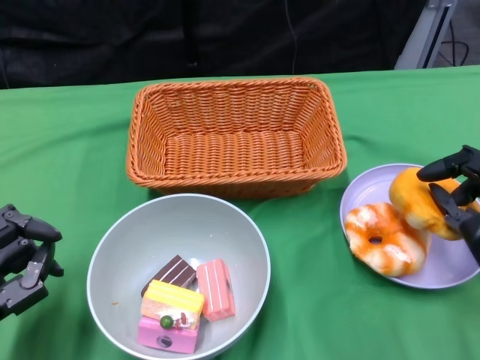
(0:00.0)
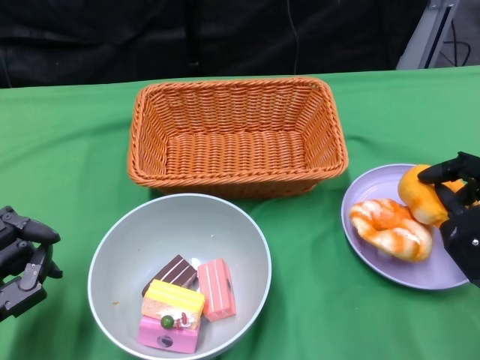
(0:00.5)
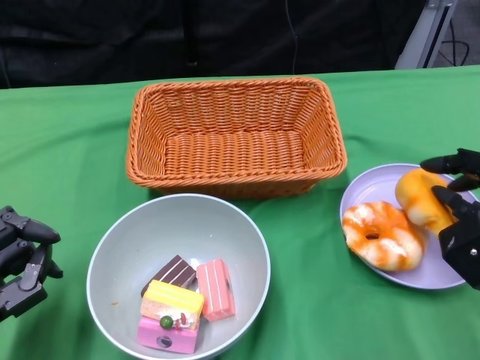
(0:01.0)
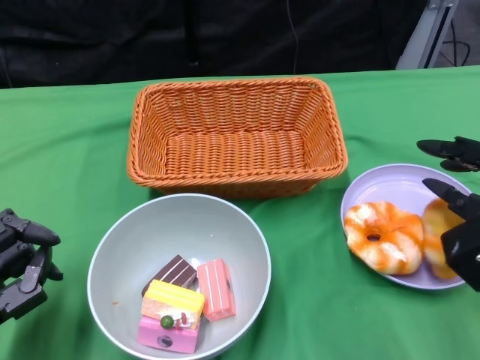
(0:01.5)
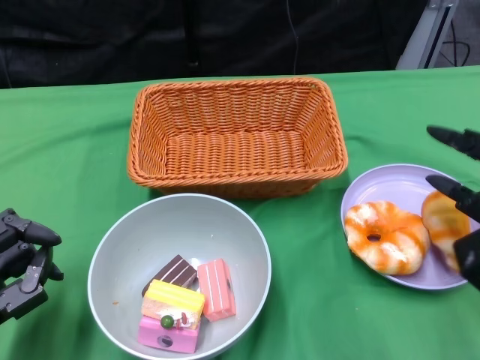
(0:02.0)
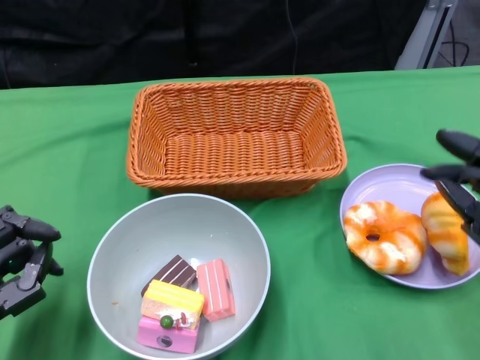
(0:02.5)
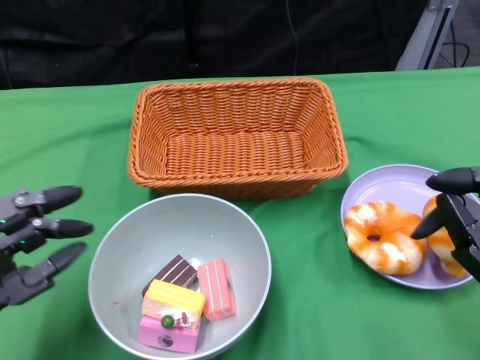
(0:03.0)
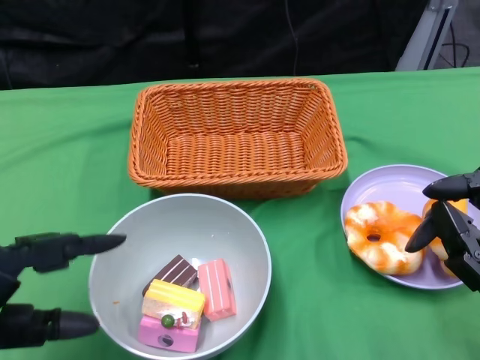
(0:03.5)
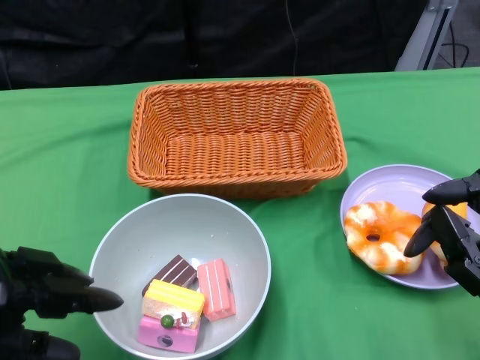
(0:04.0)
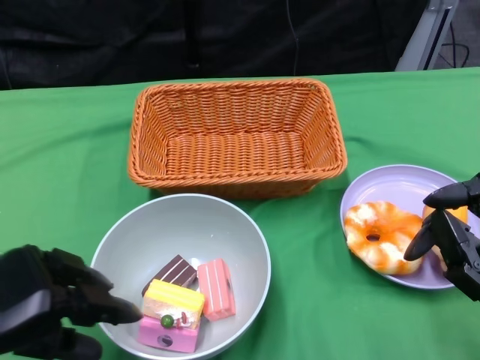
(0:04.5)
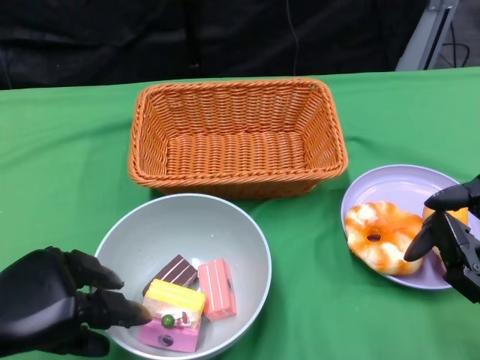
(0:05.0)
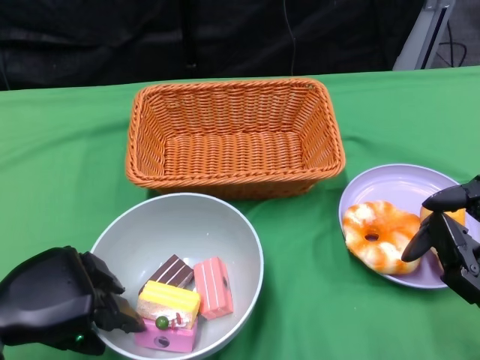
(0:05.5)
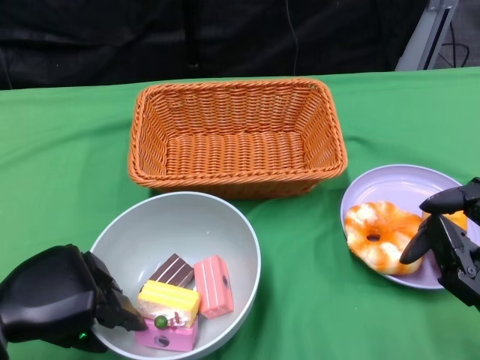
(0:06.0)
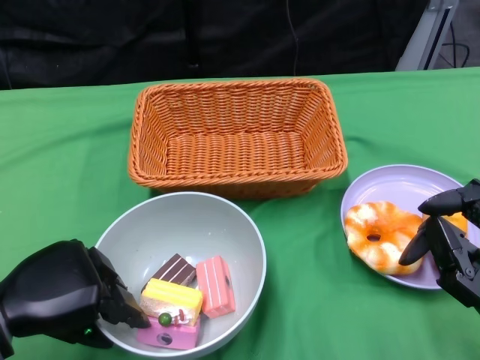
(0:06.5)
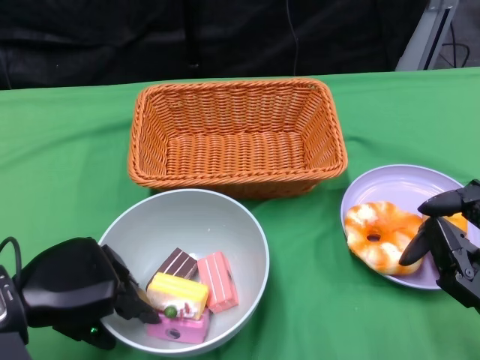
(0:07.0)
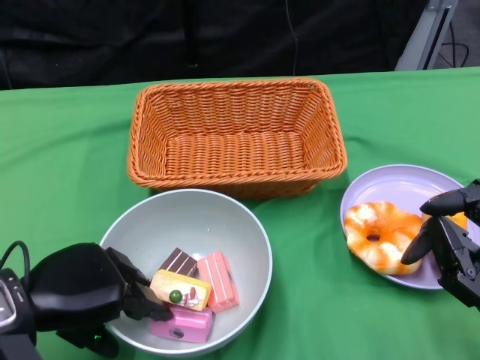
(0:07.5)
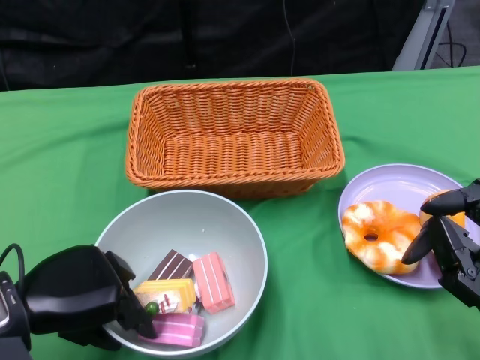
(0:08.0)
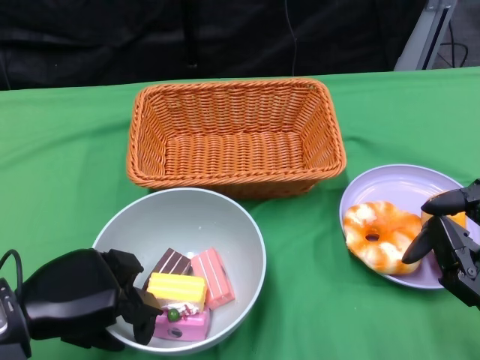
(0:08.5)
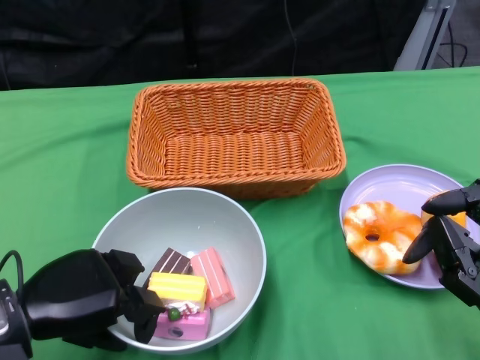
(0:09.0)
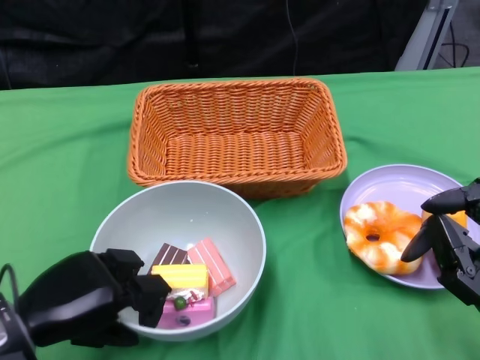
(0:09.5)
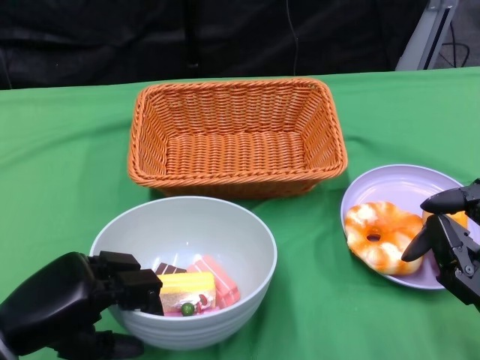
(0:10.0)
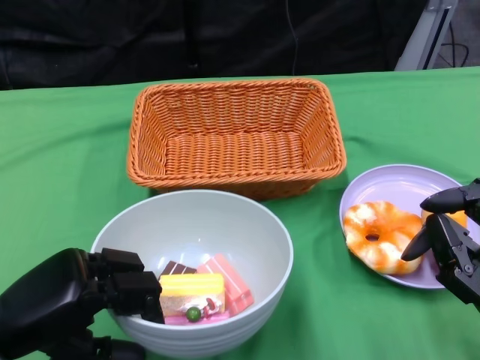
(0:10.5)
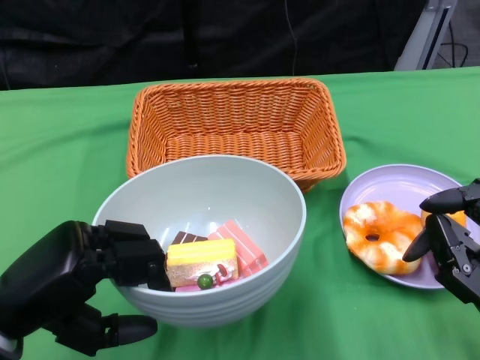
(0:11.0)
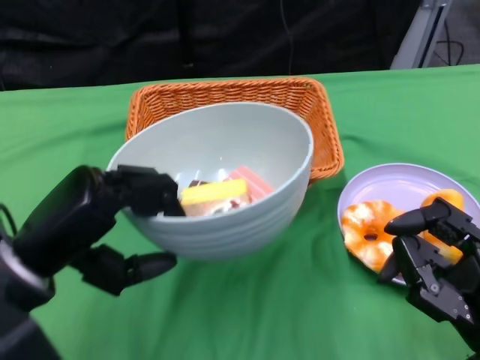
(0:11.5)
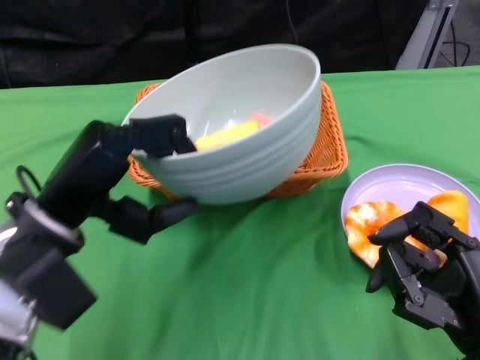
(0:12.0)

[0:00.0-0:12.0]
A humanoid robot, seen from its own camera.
Step, 0:00.0 to 0:02.5: Pick up the bread with the right gripper and place it on the plate.
Step, 0:03.5 to 0:08.5: Grasp the bowl with the left gripper.
0:02.0 to 0:04.0: The right hand shifts approximately 5 cm backward; the left hand heads upward, covering roughly 5 cm.
0:04.0 to 0:06.0: The left hand shifts by approximately 5 cm.
0:06.0 to 0:08.0: There are only small adjustments of the hands.
0:10.0 to 0:12.0: The left hand goes approximately 10 cm upward, forward and to the right.

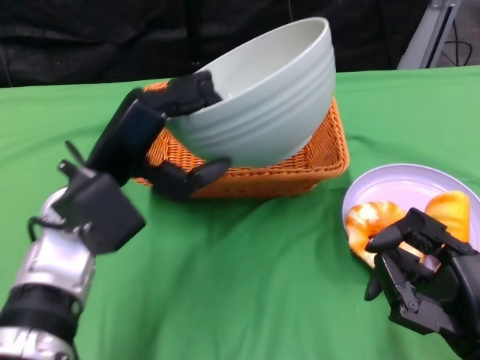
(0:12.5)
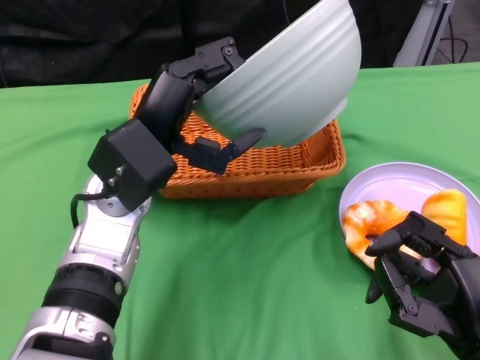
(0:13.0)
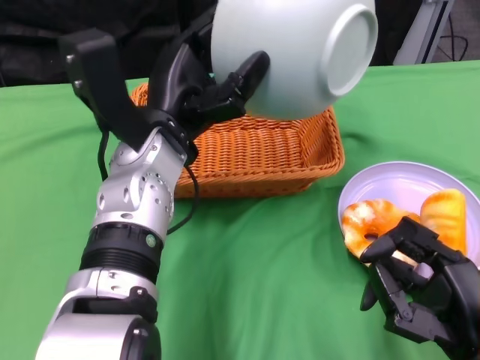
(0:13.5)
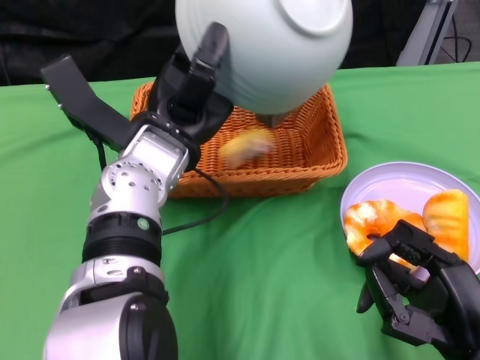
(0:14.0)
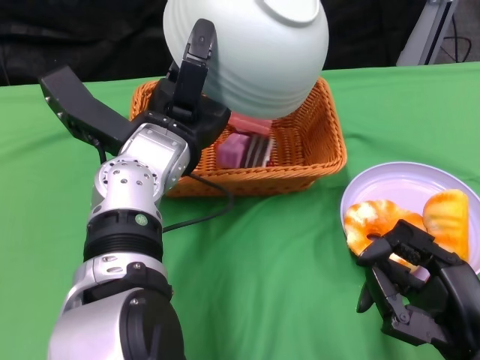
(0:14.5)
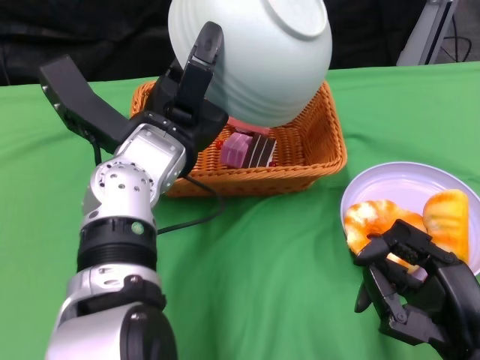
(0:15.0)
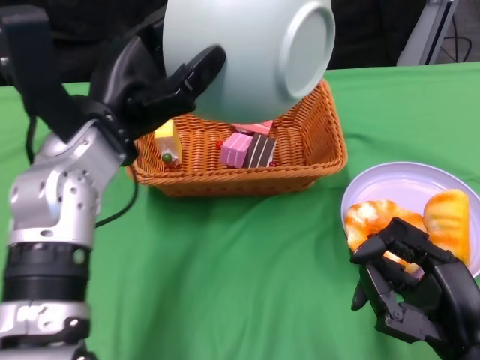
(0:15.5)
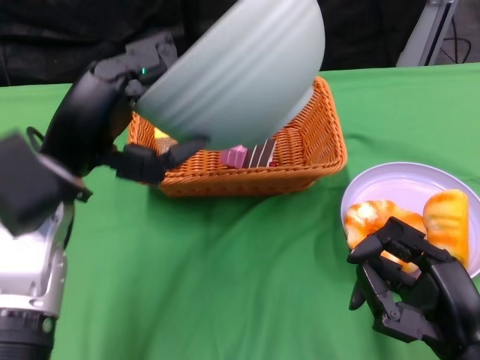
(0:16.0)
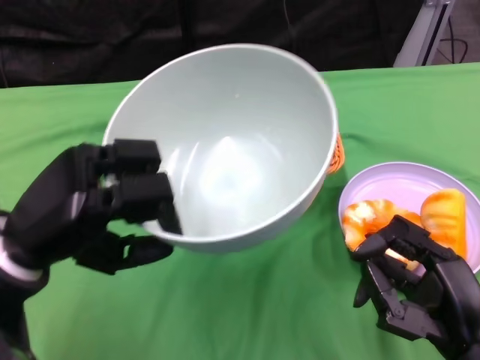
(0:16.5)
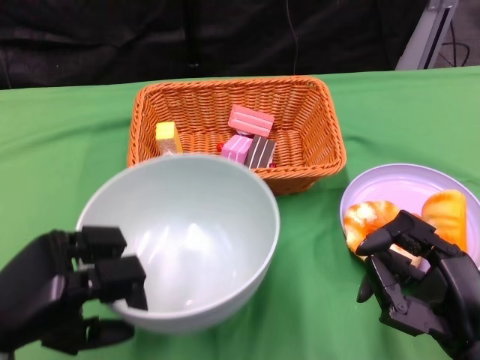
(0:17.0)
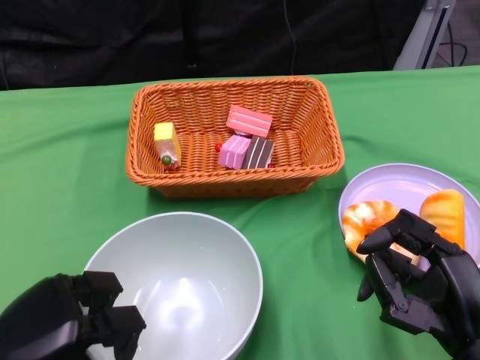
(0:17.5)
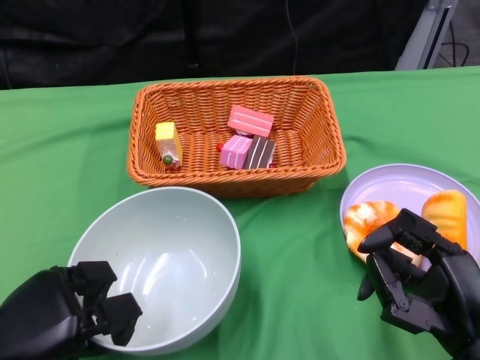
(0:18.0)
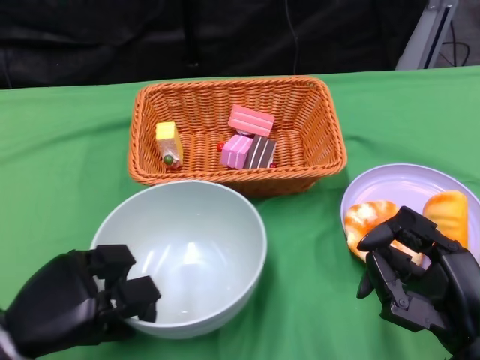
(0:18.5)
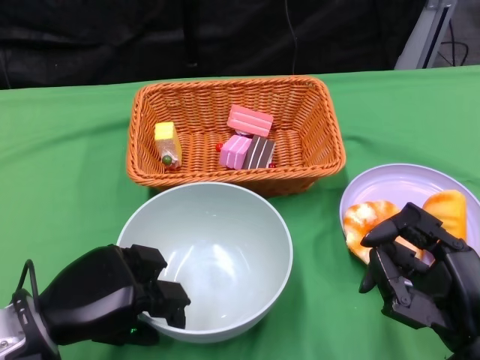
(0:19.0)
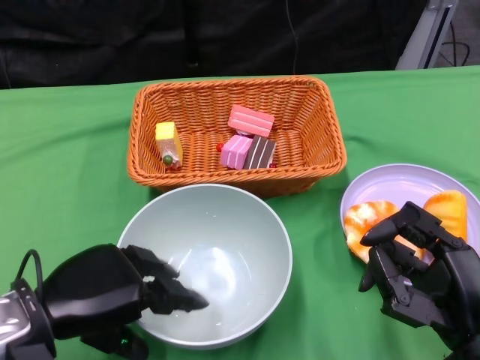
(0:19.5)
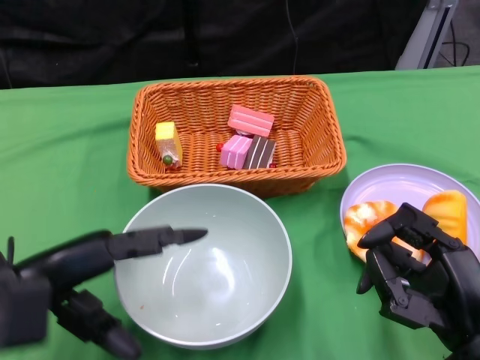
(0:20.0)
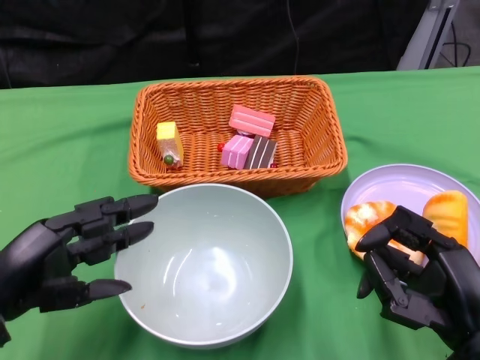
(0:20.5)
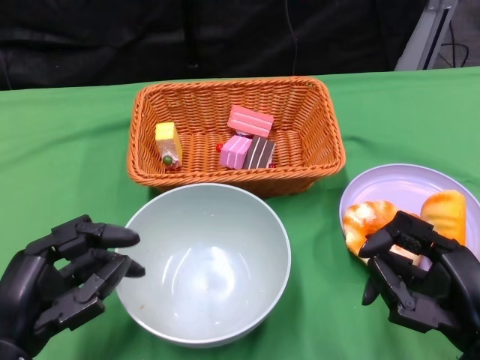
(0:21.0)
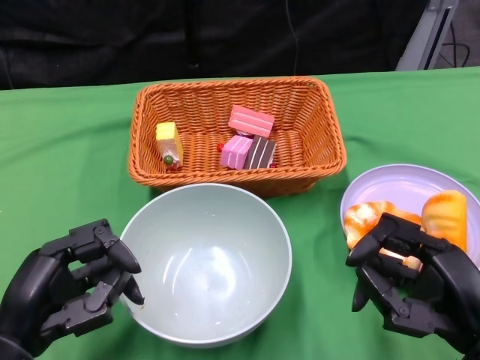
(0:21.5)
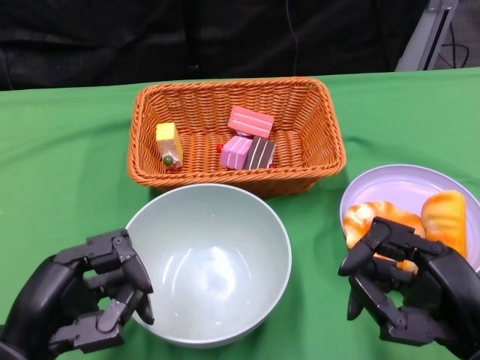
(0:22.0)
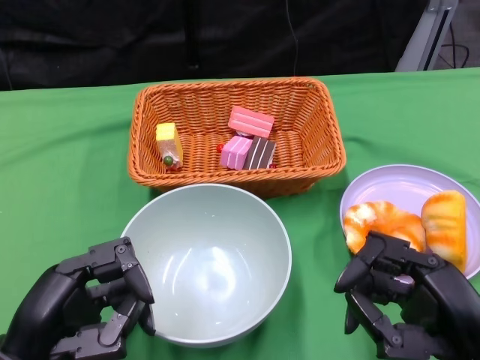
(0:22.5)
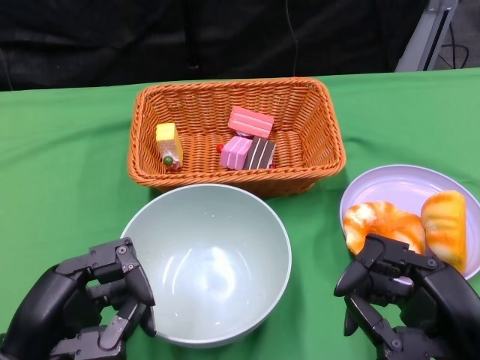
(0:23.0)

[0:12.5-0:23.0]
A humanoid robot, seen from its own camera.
Step, 0:12.5 to 0:15.0: Pour the cake into the basket with the left gripper.
Step, 0:15.5 to 0:20.0: Place the bowl on the table with the left gripper.
0:12.5 to 0:14.5: The left hand heads to the right, covering about 5 cm.
0:14.5 to 0:16.5: The left hand goes about 15 cm to the left and backward.
0:16.5 to 0:19.0: The left hand heads downward, covering approximately 10 cm.
0:21.0 to 0:23.0: There are only small adjustments of the hands.

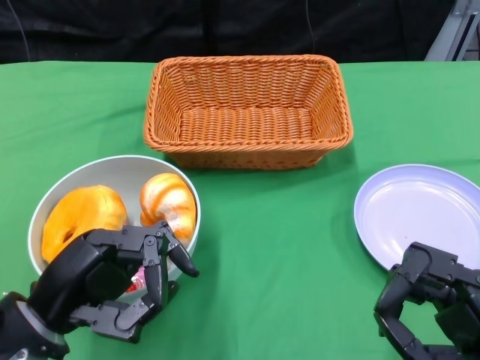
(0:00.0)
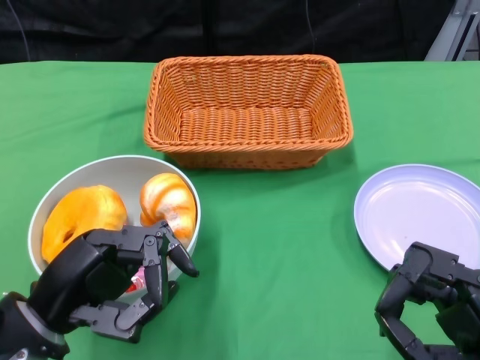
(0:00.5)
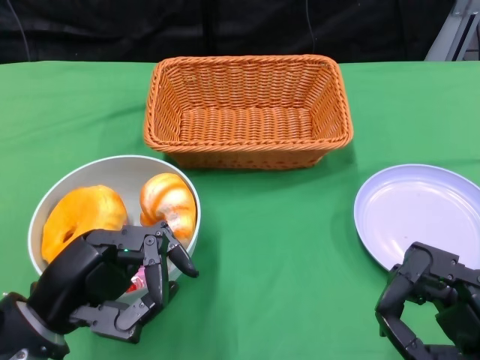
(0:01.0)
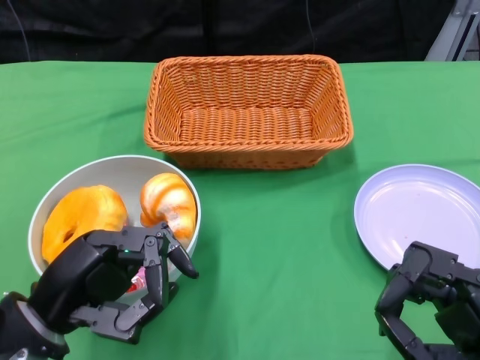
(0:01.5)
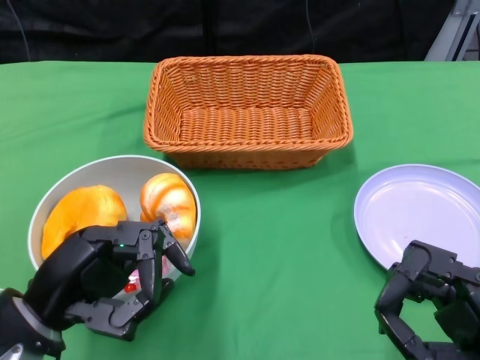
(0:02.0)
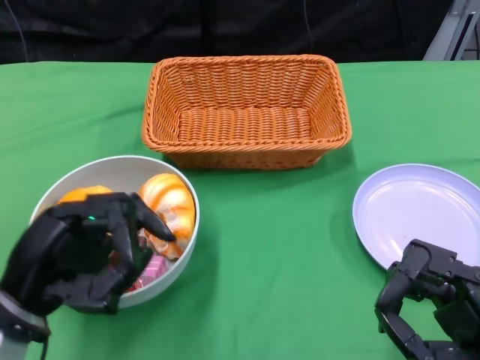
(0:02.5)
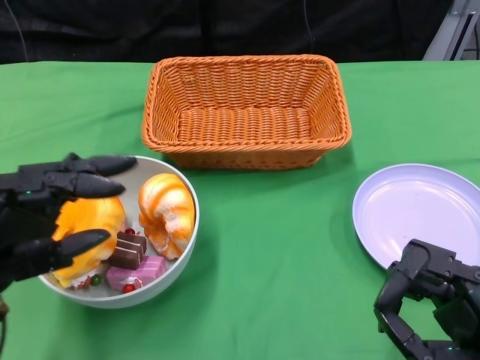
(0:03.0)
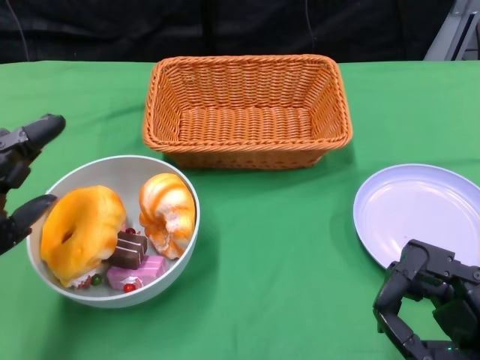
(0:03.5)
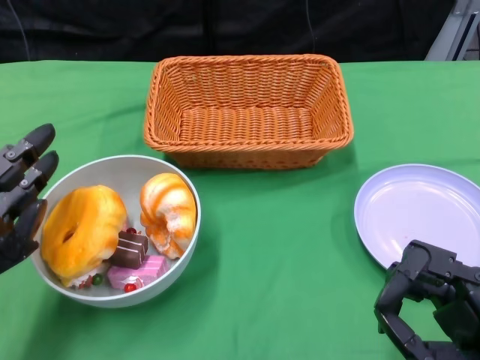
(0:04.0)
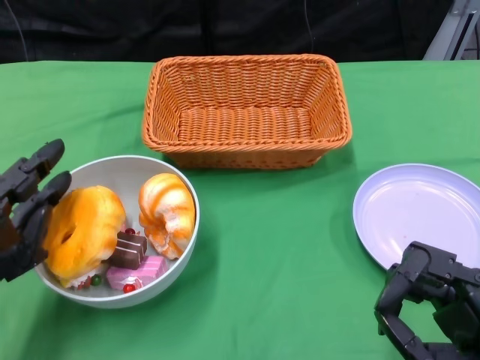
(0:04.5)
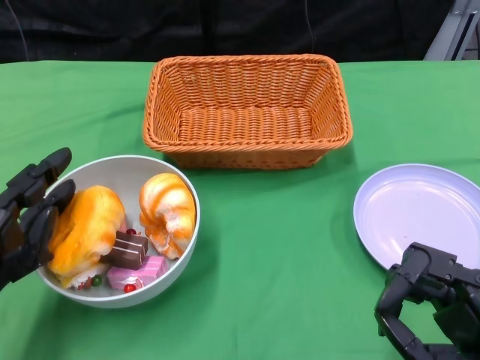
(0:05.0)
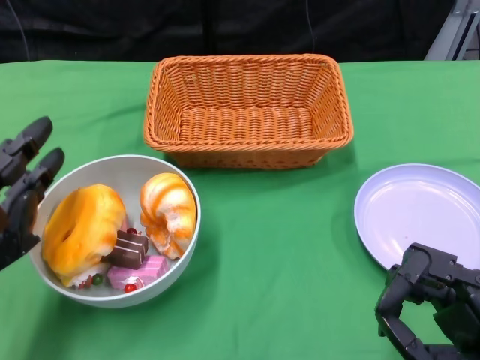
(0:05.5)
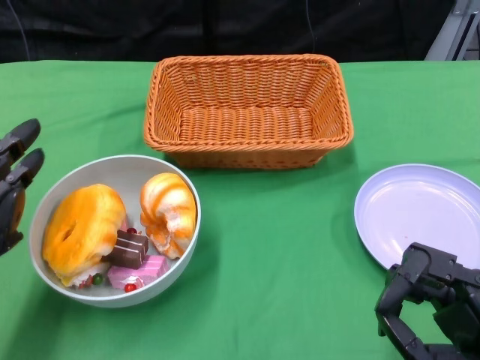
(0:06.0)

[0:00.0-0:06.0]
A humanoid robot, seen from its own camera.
0:02.0 to 0:04.0: The left hand moves to the left, about 5 cm.
0:04.0 to 0:06.0: The hands move only a little.
